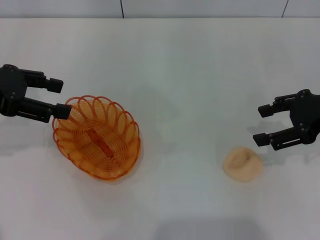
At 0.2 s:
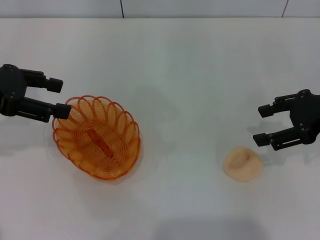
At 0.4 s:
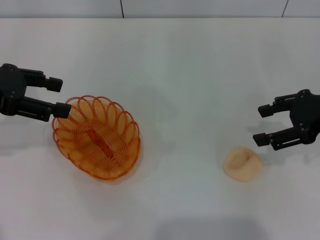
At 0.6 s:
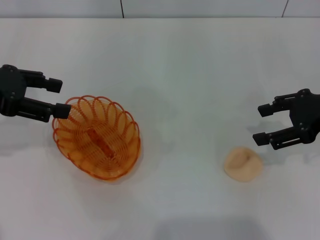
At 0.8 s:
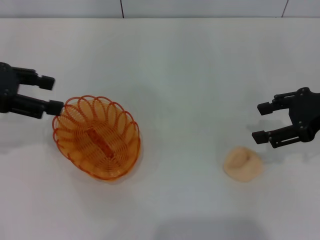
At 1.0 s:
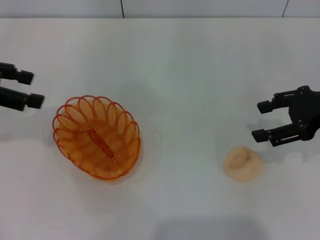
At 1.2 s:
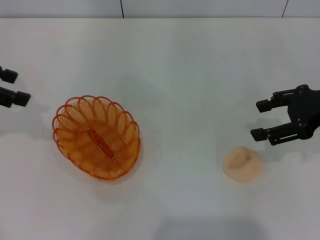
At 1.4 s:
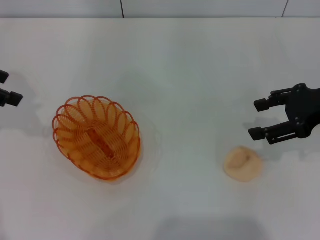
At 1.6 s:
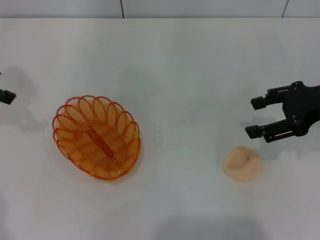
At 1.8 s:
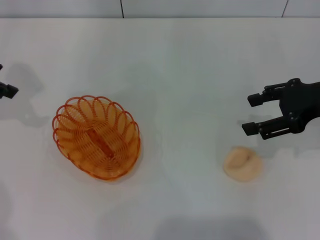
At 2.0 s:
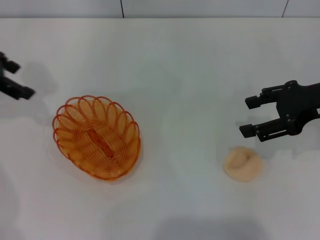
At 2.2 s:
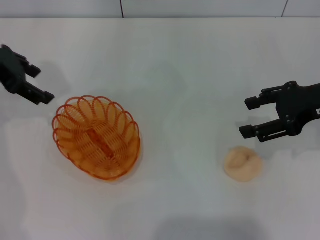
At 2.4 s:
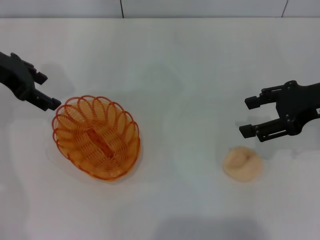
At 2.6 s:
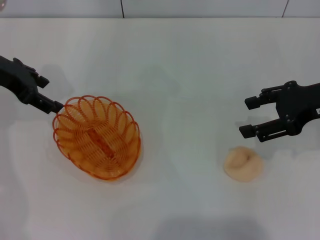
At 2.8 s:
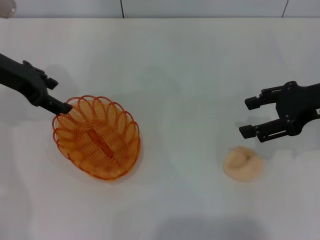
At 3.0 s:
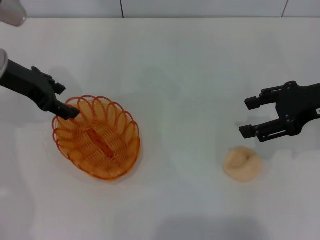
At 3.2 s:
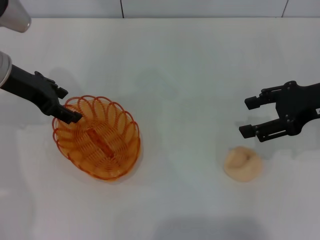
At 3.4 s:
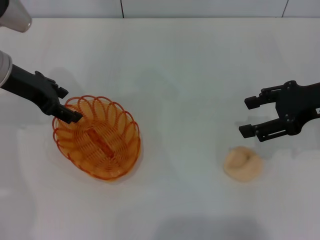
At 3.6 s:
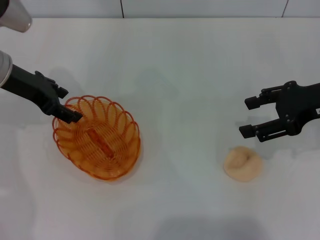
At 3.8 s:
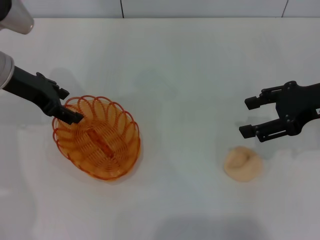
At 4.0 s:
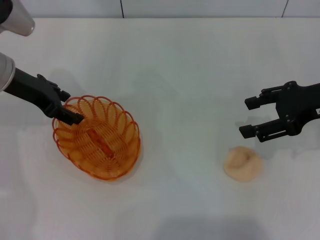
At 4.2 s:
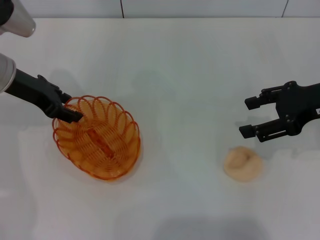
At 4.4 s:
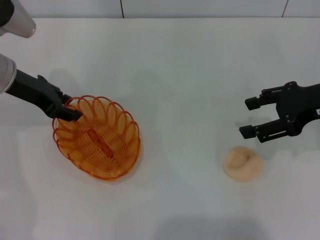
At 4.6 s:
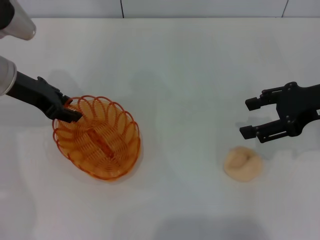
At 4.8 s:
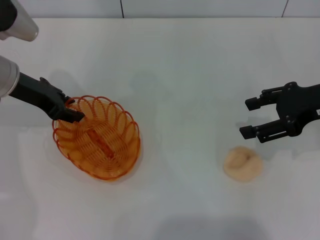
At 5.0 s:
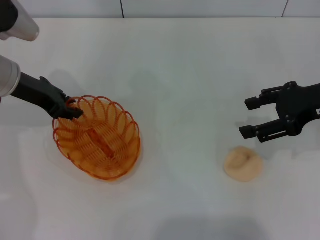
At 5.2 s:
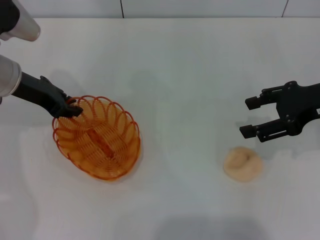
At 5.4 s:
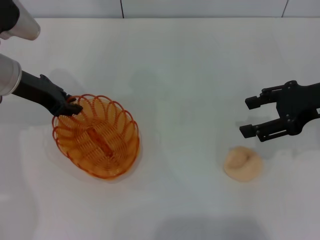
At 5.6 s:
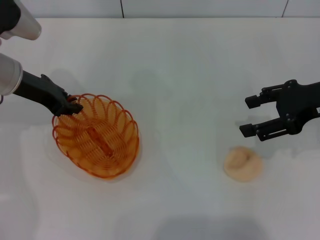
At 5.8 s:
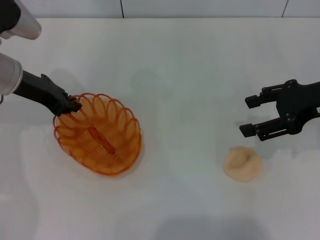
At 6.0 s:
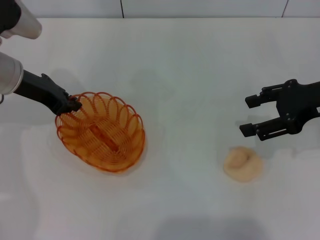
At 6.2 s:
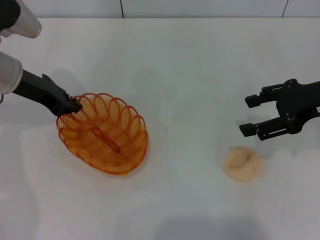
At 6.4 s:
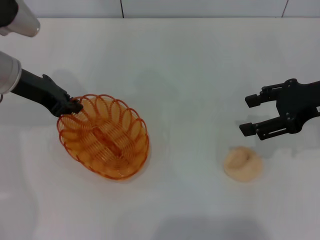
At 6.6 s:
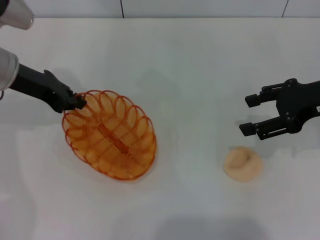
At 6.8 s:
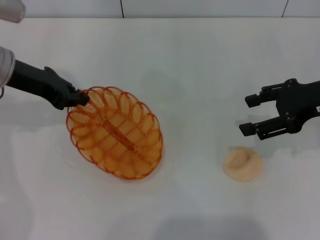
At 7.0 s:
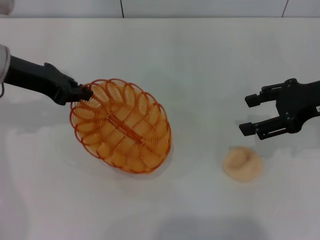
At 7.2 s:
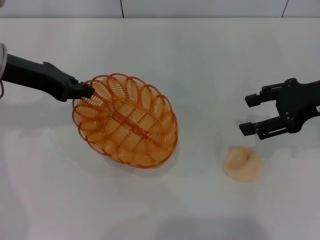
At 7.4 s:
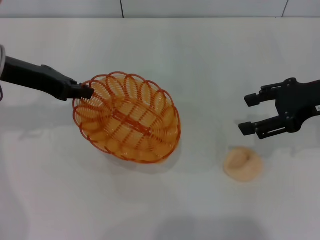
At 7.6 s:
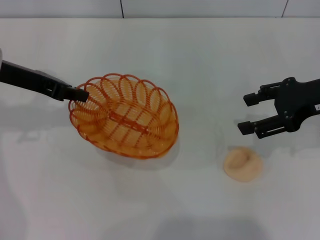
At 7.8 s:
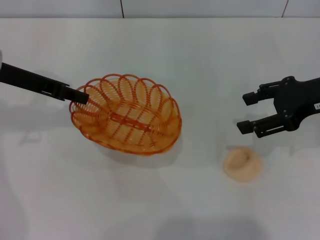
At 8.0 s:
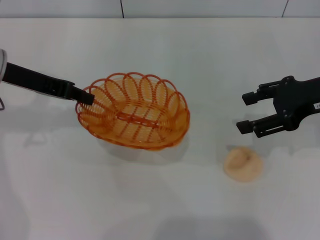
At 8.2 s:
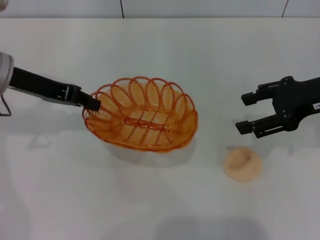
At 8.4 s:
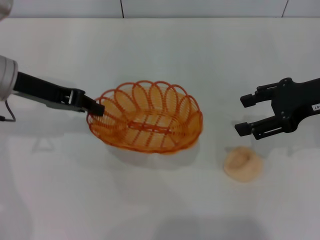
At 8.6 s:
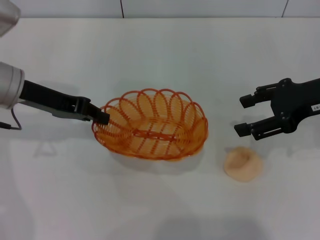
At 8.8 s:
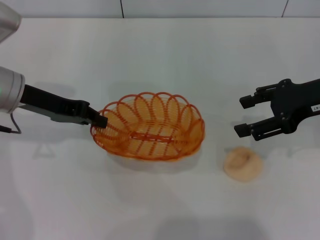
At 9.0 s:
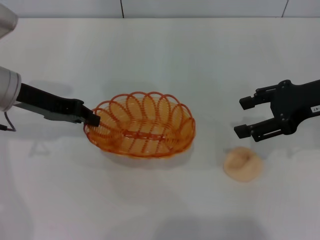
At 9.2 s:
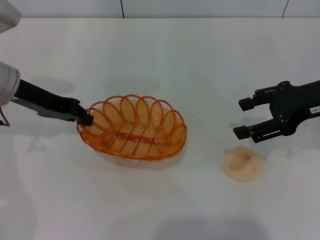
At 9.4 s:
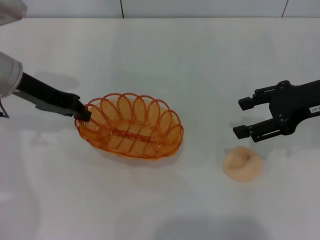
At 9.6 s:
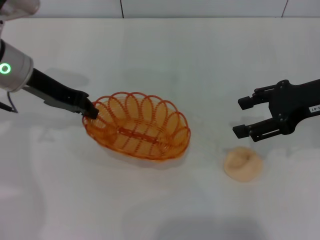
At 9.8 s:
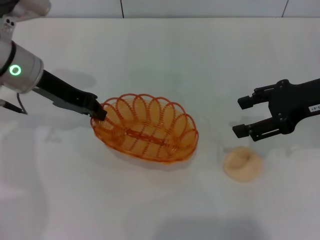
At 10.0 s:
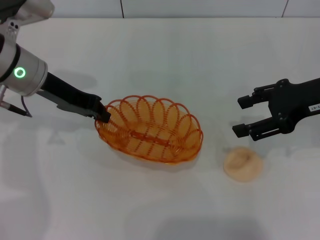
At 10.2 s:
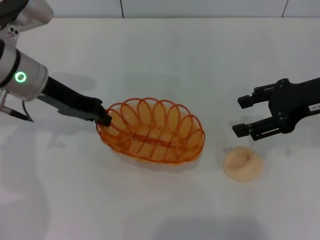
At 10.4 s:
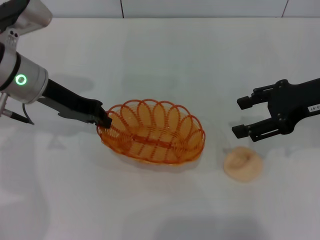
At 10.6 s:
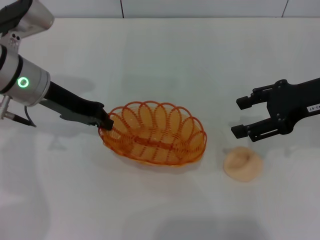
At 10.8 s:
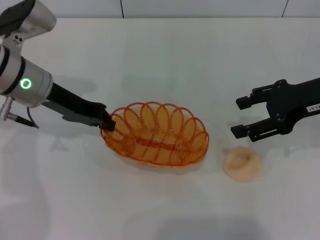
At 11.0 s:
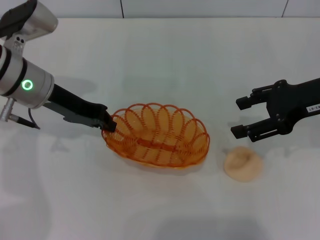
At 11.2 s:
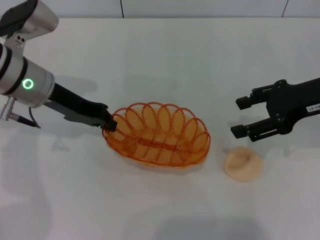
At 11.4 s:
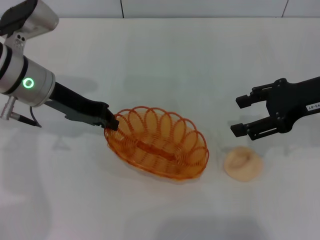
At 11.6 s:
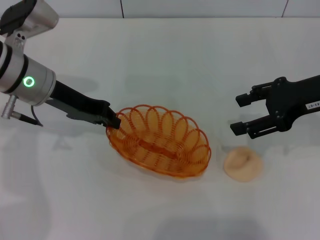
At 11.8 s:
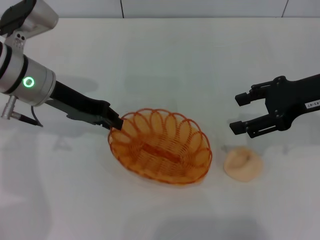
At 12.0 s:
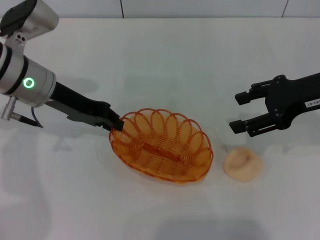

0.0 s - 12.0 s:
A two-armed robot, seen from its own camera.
Step, 0.0 s - 7.2 s: Pick up the basket with the left gripper.
0.0 s - 1.6 s: The left gripper changes place by roughly 5 cm.
1.6 s - 3.0 s: The left gripper moves to the right and downward, roughly 10 cm.
3.0 s - 4.4 s: There are only small adjustments of the grippers.
4.4 s - 6.0 s: The left gripper closes.
9.0 s - 10.4 s: The grippers move only a little.
10.4 s - 12.0 s: Both grippers stay about where they are.

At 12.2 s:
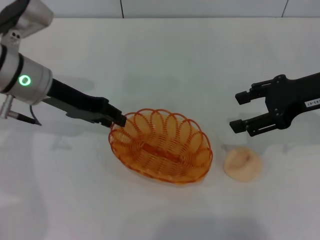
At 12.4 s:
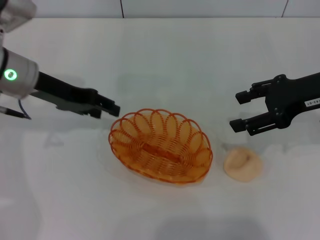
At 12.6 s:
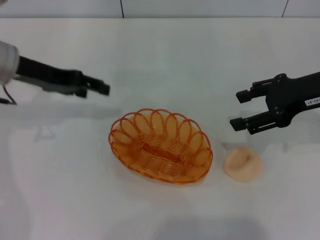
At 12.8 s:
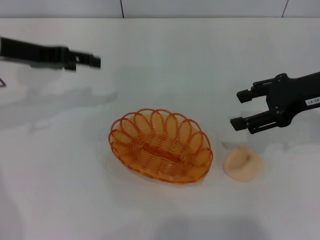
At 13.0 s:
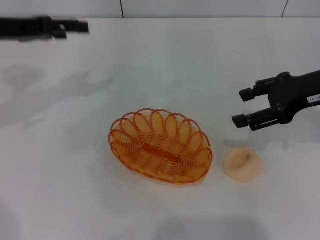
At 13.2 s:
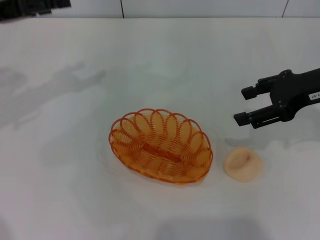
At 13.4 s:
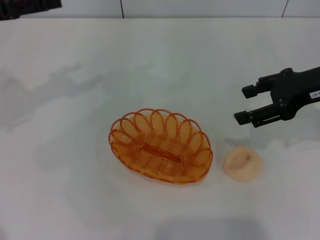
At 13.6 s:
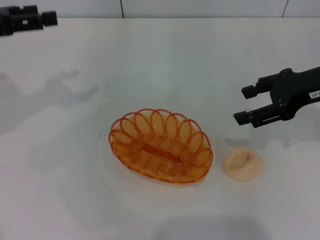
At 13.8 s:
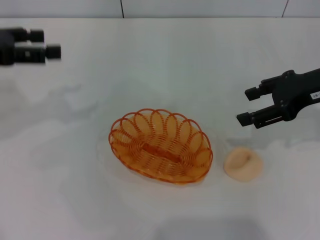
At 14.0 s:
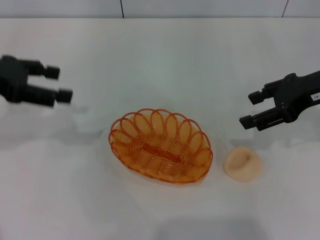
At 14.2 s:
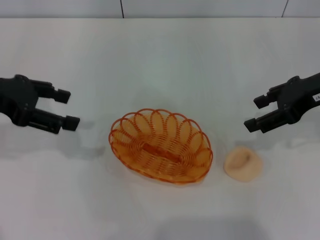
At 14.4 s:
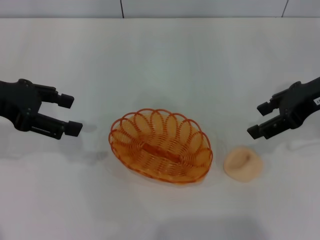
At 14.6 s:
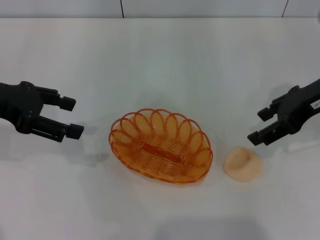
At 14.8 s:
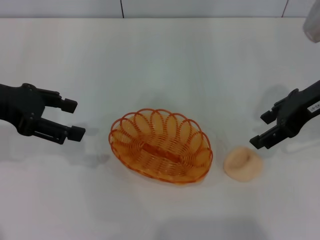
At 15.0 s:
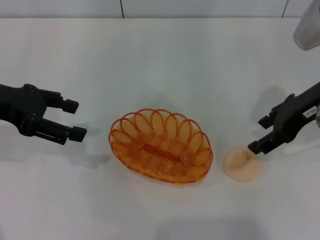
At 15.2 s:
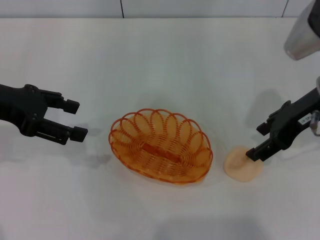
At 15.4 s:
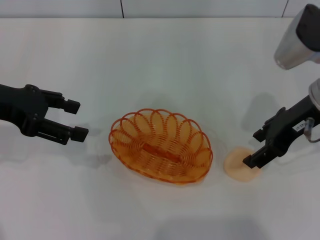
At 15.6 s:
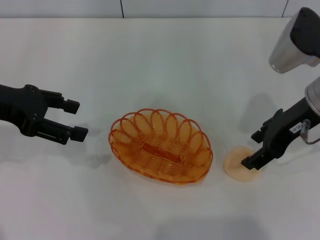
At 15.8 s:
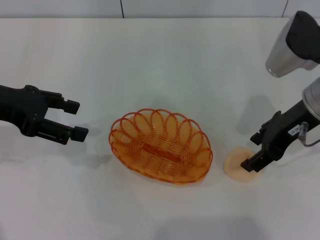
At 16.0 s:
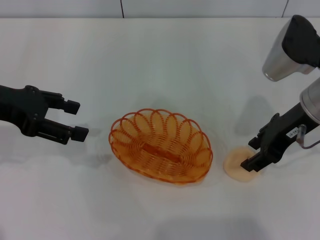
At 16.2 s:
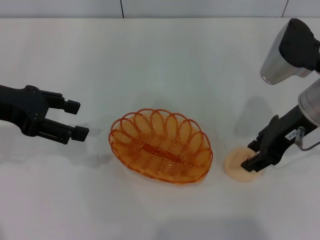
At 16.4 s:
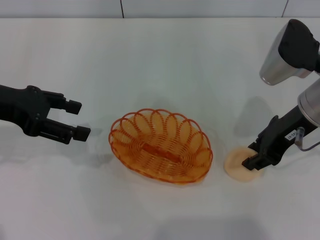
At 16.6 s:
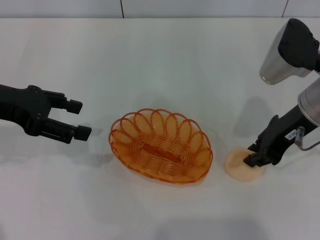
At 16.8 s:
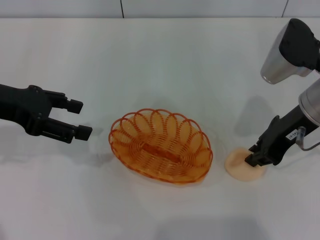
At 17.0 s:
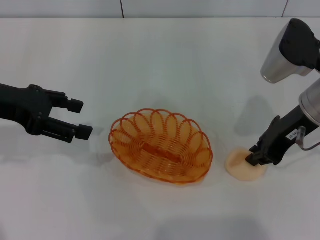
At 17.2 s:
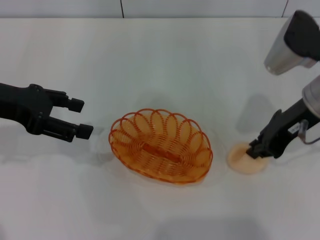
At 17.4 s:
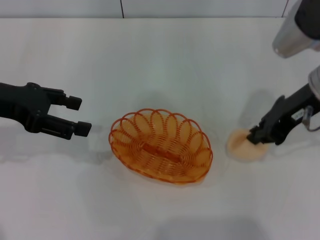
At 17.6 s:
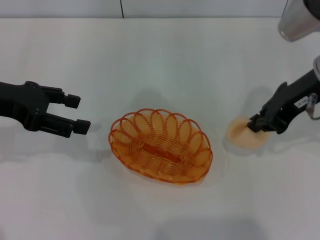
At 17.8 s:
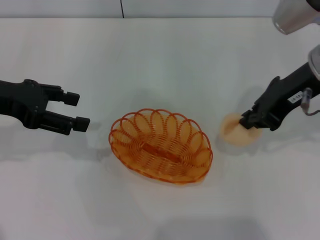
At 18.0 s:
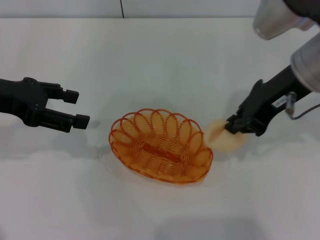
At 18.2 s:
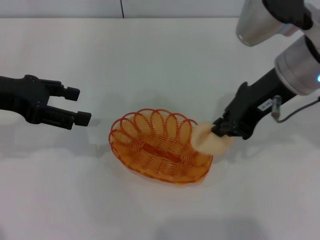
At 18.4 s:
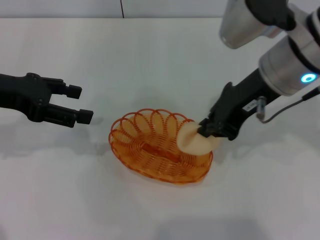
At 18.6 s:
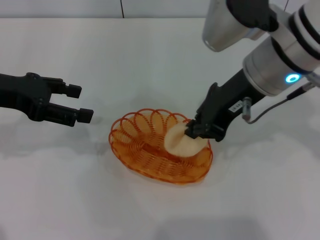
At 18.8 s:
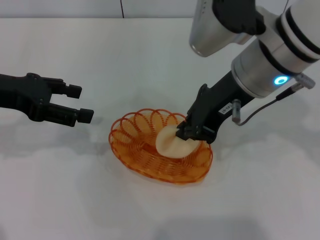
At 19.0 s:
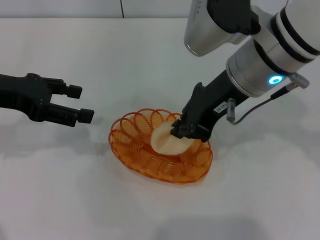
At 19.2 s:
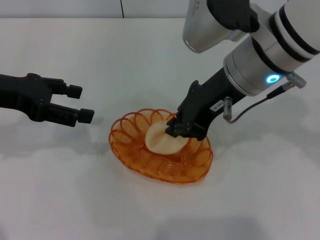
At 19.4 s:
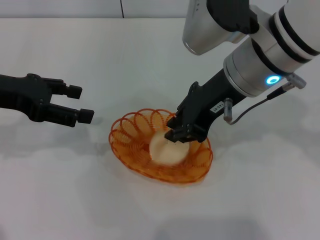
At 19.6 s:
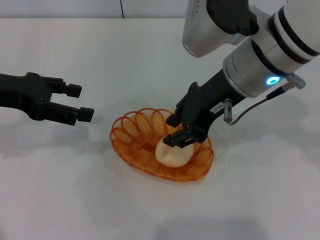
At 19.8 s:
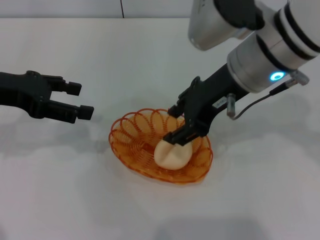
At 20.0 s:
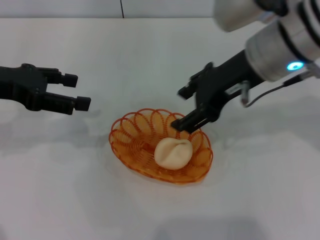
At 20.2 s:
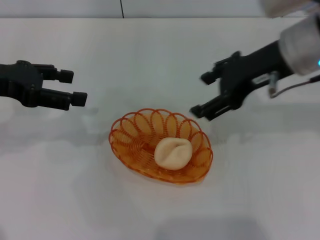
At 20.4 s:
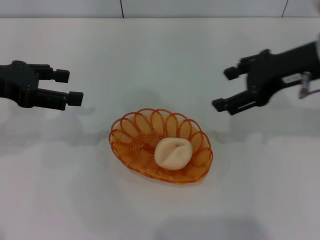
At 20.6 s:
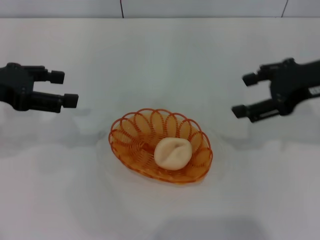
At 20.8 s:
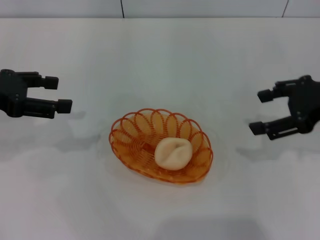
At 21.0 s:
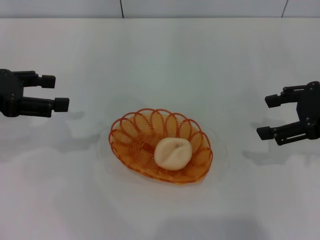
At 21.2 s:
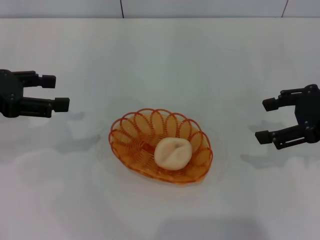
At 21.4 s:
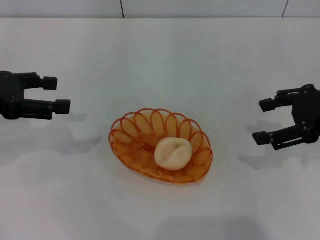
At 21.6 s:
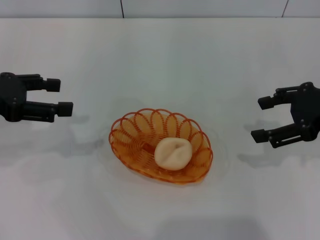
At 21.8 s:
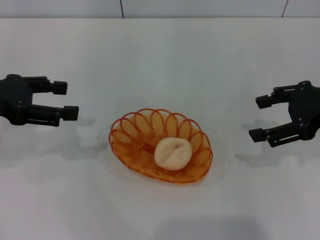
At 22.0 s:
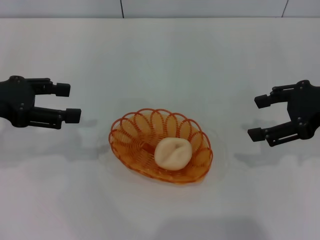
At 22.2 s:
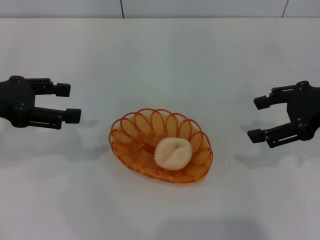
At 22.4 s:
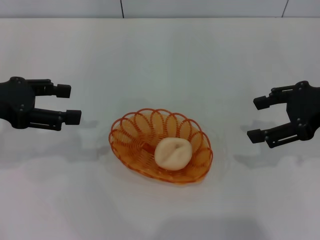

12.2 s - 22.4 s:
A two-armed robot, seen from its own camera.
Step, 12.4 s - 17.4 s: Pick up the egg yolk pastry with the right gripper.
Step, 17.6 s - 20.0 s: Place the egg yolk pastry into the basket with the right gripper.
12.2 s - 13.6 s: The left gripper shifts approximately 15 cm to the left and upward, and opens its fingers.
13.6 s - 15.2 s: The left gripper ends up approximately 5 cm from where it was.
15.2 s - 16.6 s: The right gripper closes up.
16.6 s - 18.0 s: The right gripper goes approximately 5 cm upward, and closes up.
18.0 s - 19.4 s: The right gripper goes about 5 cm to the left.
19.4 s - 21.0 s: The right gripper travels to the right by approximately 20 cm, and opens up.
21.0 s - 22.4 s: There are only small adjustments of the grippers.
